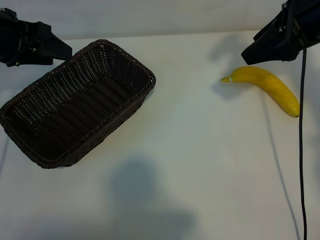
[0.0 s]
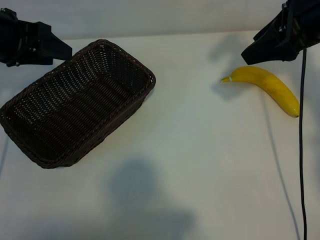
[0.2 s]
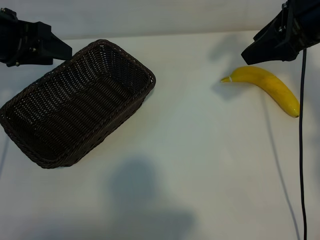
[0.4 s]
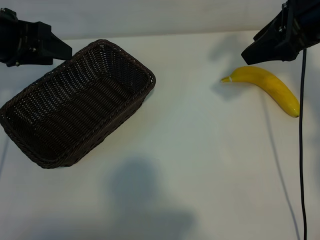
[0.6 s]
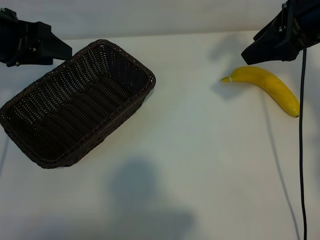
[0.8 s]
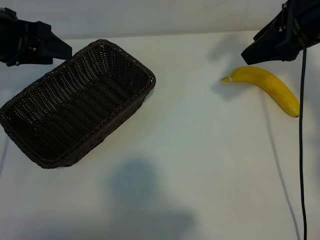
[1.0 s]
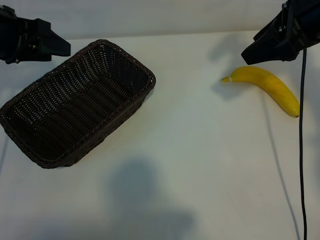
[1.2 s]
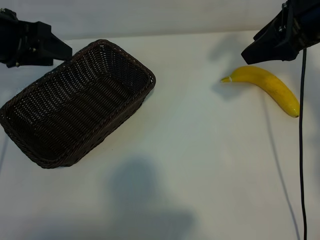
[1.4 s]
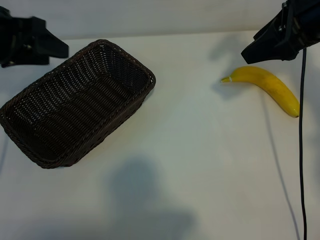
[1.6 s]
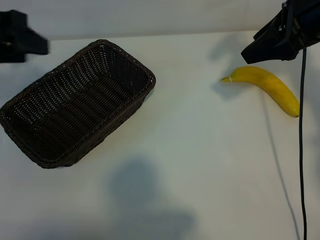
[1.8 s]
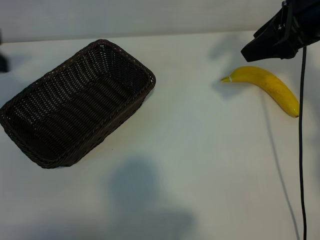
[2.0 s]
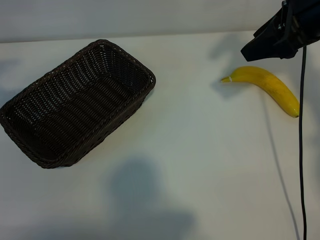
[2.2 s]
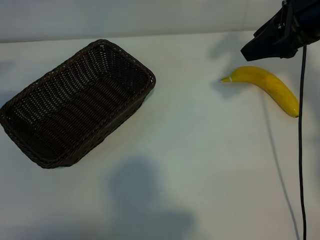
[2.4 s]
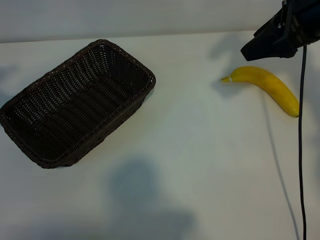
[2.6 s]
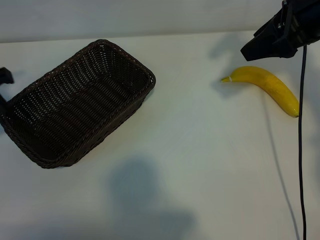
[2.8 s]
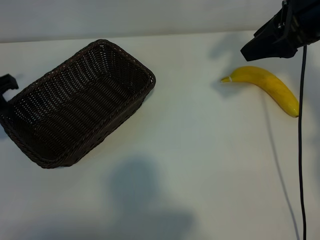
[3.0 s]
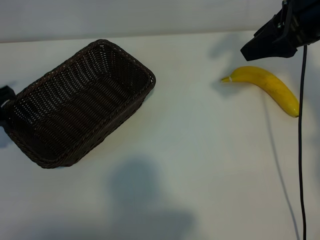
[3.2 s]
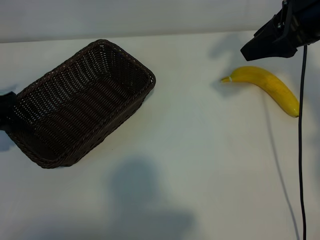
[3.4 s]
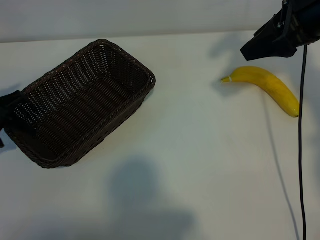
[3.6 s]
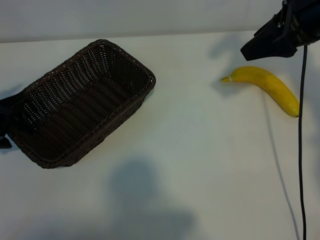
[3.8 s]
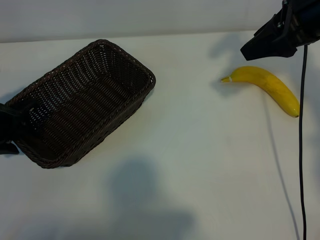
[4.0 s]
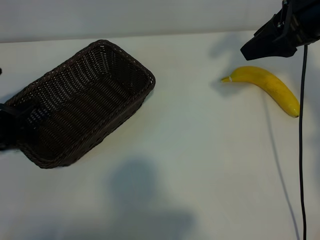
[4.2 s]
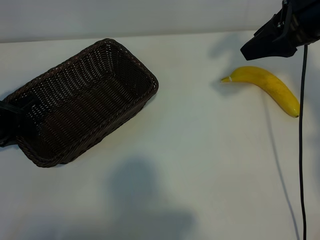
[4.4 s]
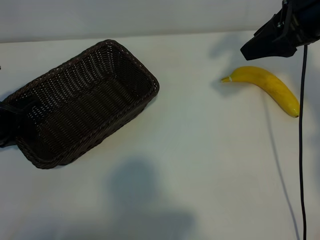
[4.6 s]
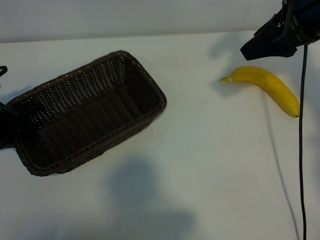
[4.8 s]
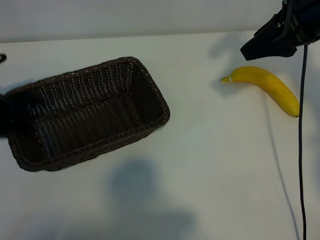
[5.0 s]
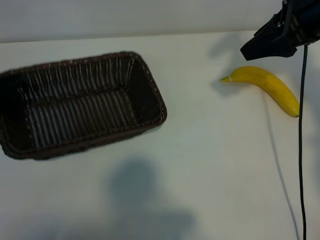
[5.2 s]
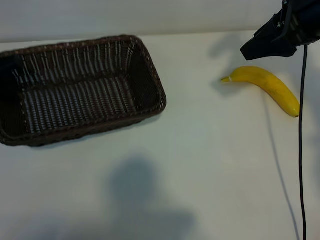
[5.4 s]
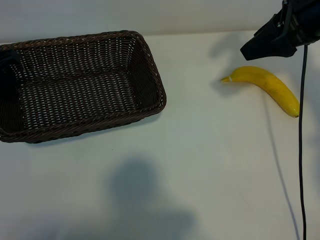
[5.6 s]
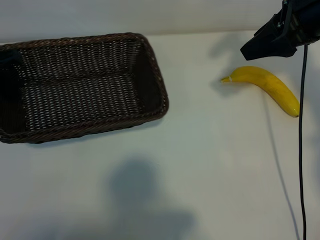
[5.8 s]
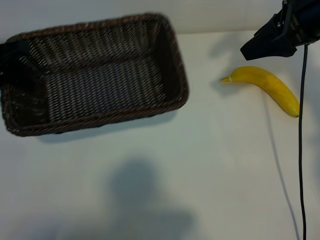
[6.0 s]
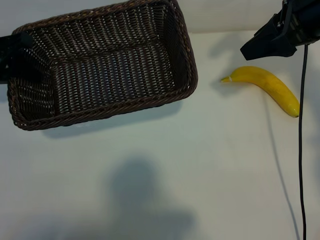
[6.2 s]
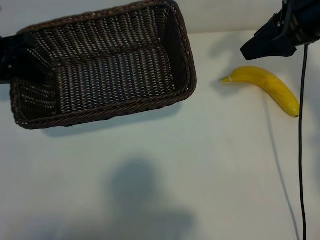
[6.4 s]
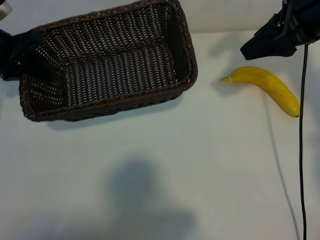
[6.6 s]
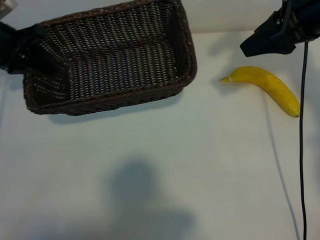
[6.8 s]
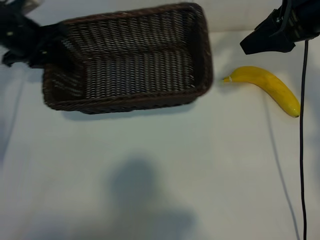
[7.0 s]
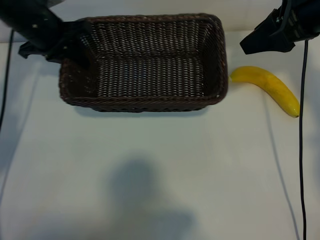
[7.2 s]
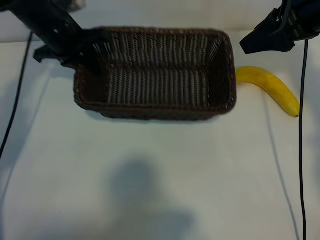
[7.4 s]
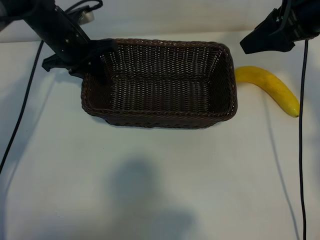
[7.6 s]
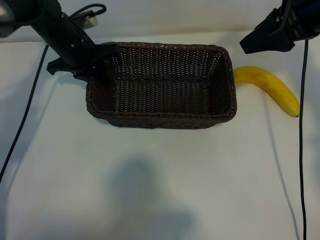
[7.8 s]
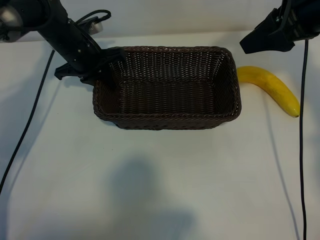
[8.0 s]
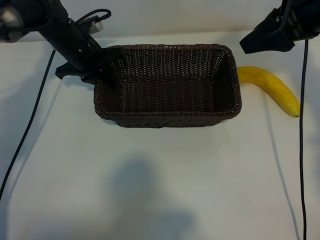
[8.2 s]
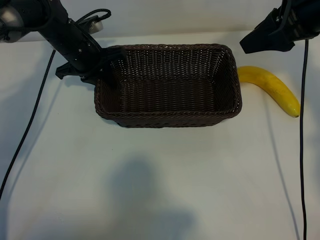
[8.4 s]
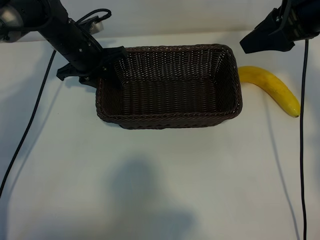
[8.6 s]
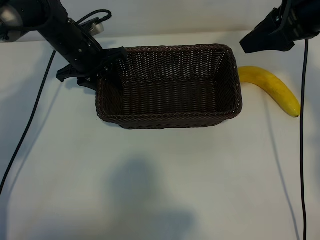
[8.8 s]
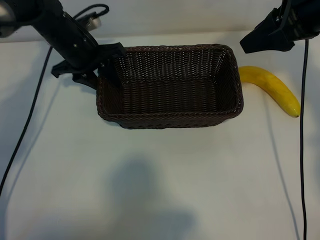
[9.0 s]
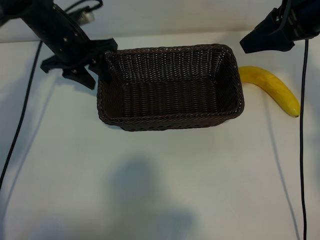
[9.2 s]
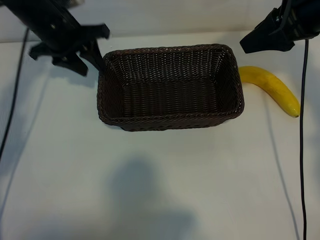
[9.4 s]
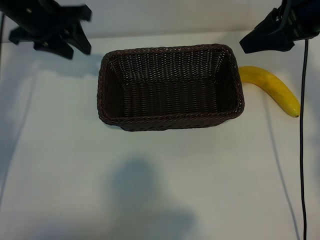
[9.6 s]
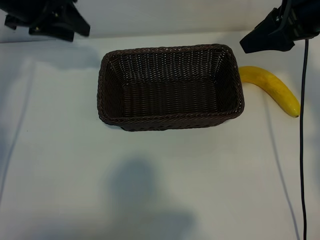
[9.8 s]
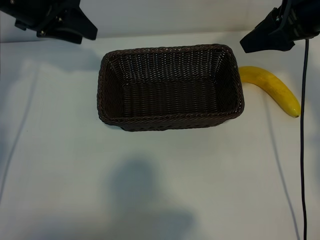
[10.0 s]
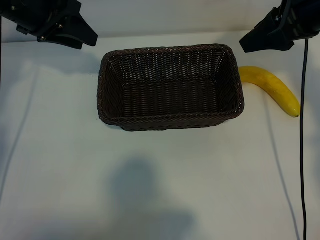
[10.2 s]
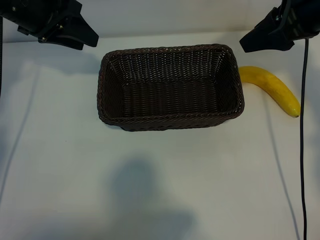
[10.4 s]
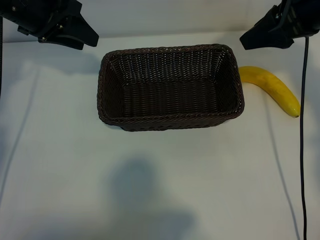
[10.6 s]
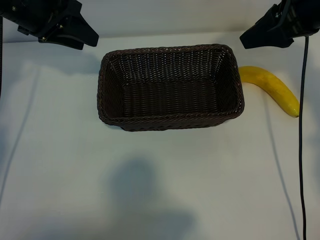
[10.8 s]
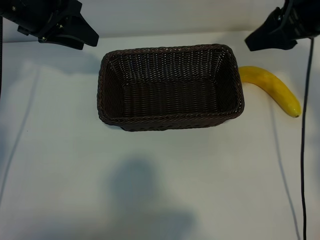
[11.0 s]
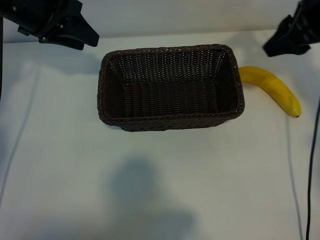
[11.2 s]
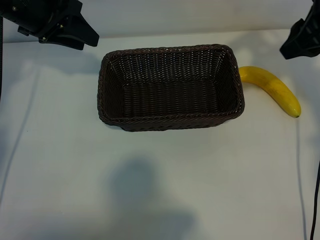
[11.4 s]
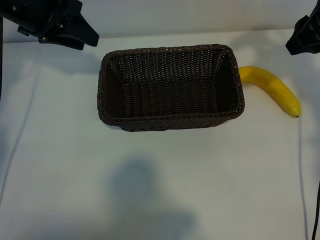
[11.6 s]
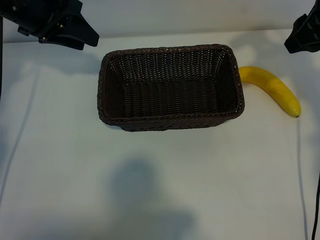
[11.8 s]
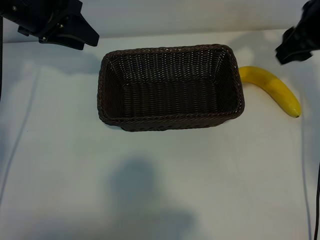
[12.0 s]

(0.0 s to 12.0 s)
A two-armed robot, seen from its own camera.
Task of the whole recording: pick up the banana and put it into the basket.
Step, 1.0 s - 4.2 s: Grasp the basket with the left gripper.
Step, 4.6 s - 8.8 s: Place the basket in the center of the table with the left gripper.

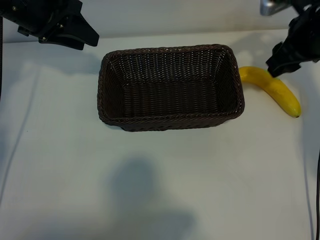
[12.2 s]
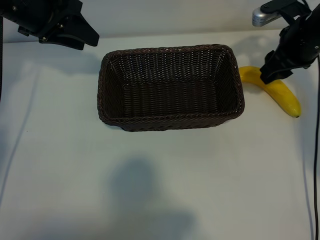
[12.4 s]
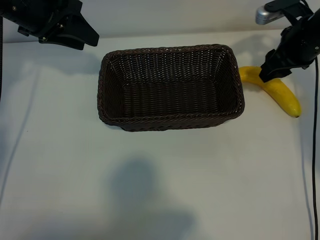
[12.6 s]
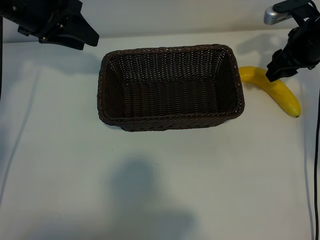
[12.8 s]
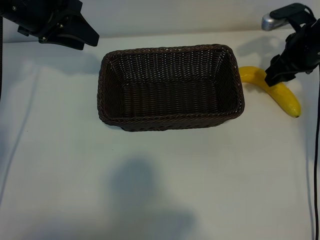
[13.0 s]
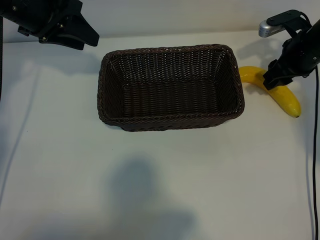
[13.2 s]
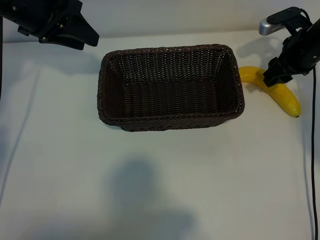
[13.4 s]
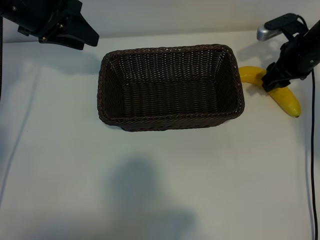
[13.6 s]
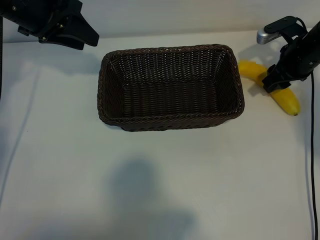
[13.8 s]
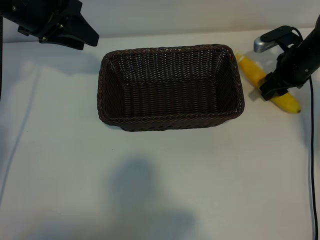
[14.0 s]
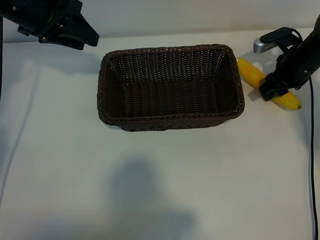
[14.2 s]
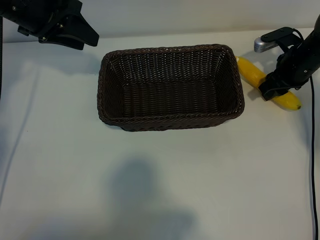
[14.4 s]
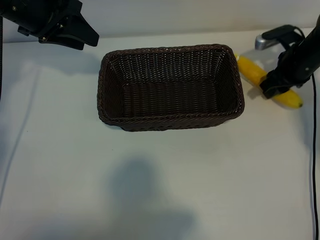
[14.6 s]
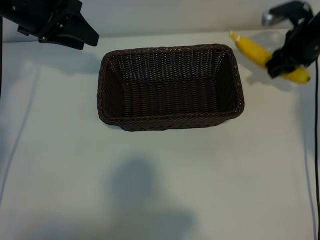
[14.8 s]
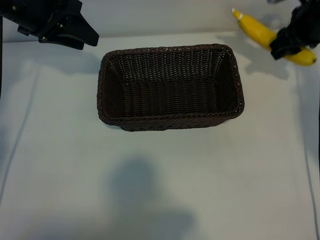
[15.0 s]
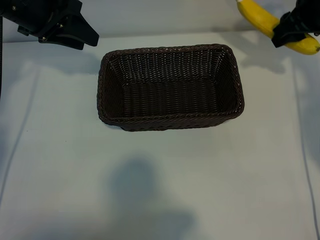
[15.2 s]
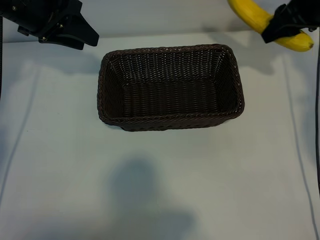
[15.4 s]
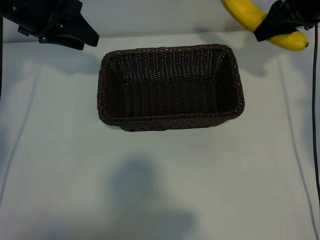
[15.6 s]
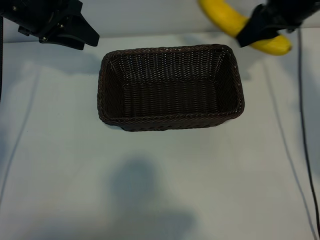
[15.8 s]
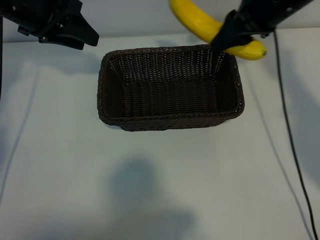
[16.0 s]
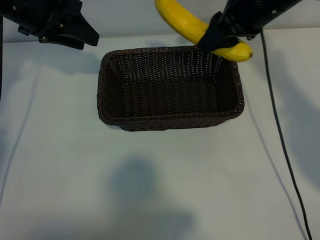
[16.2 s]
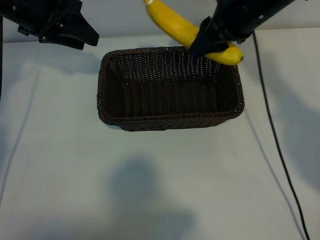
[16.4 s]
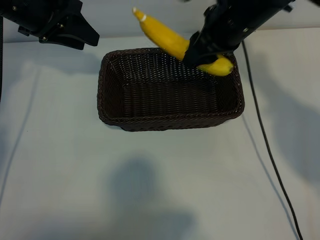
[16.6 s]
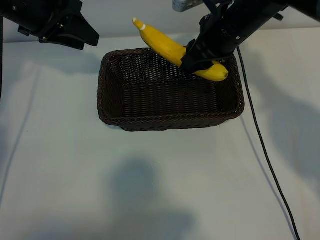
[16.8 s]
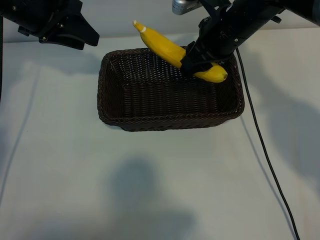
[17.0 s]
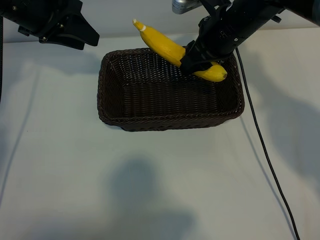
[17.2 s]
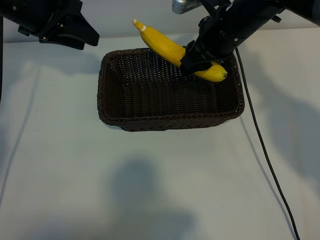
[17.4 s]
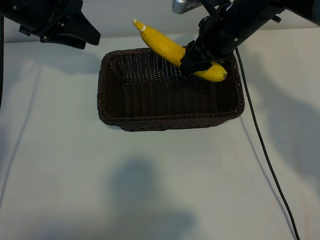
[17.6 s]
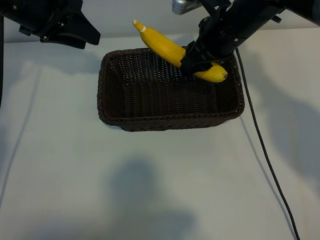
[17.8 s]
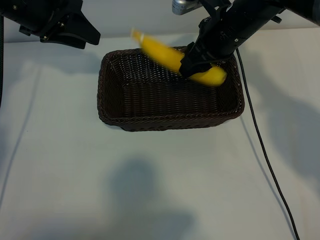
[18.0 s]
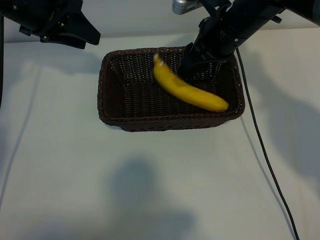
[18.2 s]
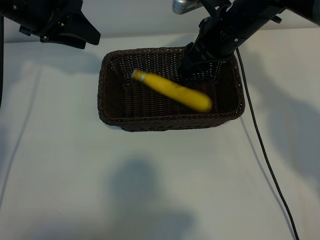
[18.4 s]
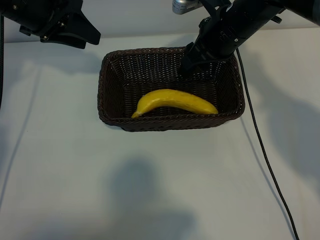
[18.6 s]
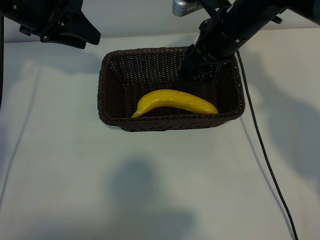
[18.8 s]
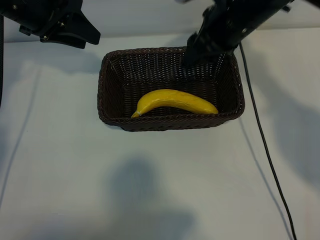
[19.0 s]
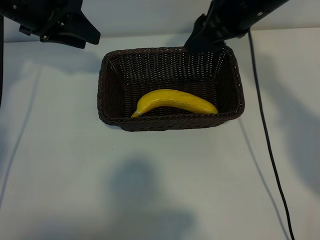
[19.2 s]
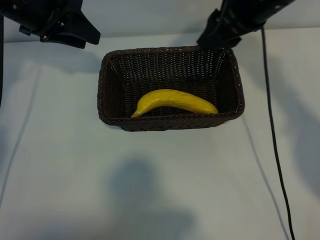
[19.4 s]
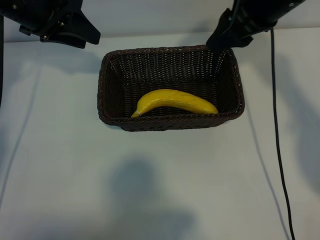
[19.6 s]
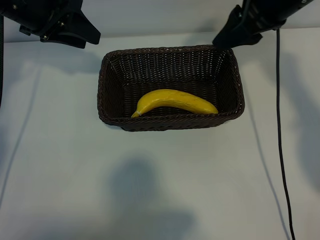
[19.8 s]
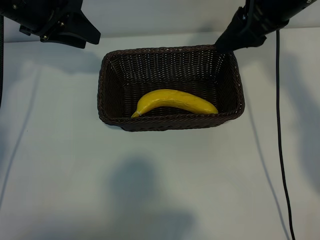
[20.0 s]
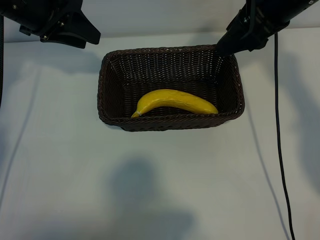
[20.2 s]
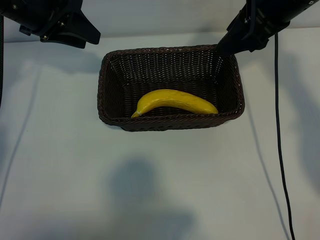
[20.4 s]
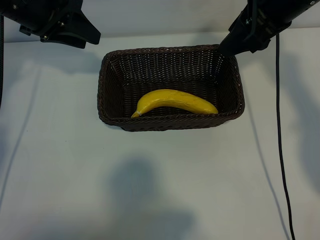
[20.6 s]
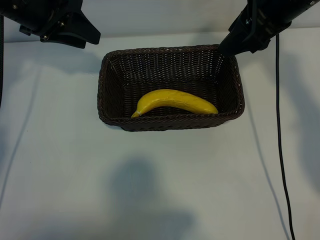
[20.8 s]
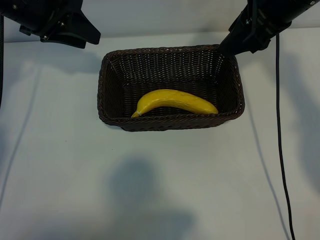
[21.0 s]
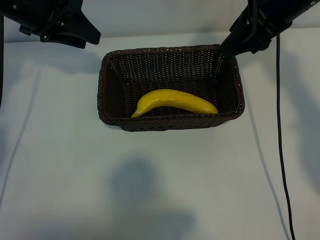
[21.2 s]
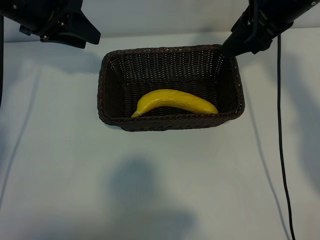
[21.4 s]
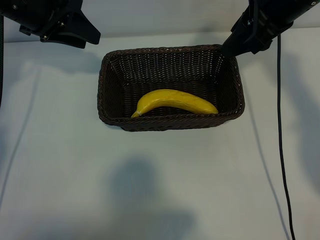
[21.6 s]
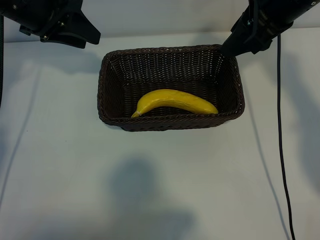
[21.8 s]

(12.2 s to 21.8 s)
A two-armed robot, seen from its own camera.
Task of the whole recording: pick up the banana and put it into the basket.
Step, 12.2 s - 14.4 s: Grasp the banana with right gripper.
Step, 14.6 s - 18.2 s: Place the banana in the basket with right gripper.

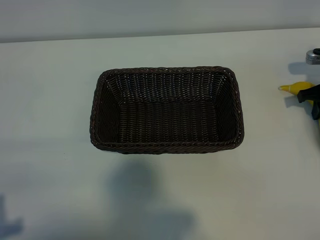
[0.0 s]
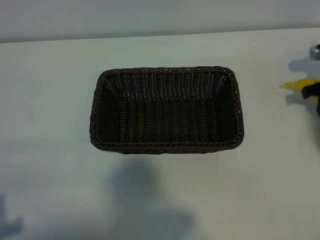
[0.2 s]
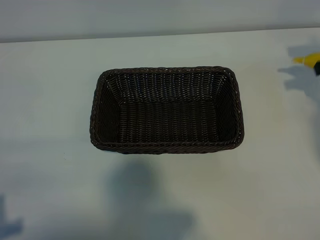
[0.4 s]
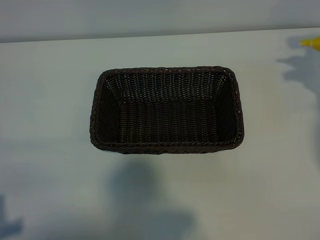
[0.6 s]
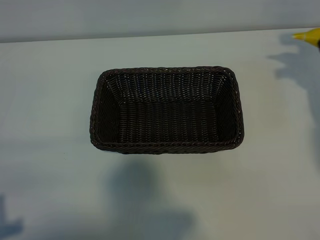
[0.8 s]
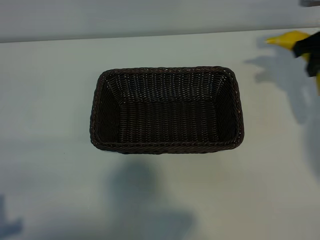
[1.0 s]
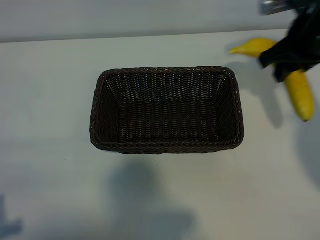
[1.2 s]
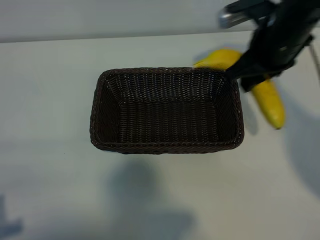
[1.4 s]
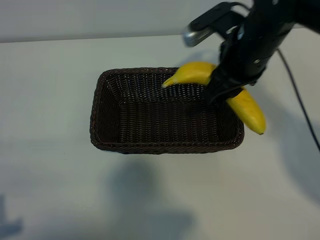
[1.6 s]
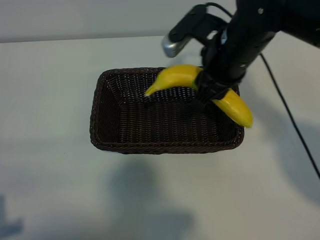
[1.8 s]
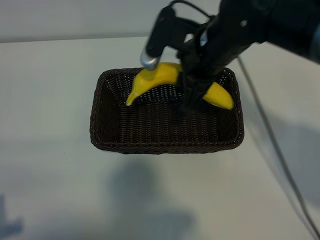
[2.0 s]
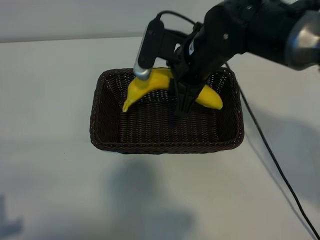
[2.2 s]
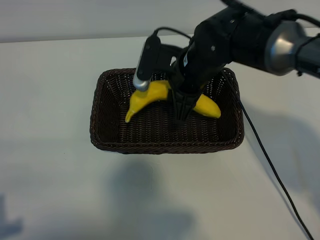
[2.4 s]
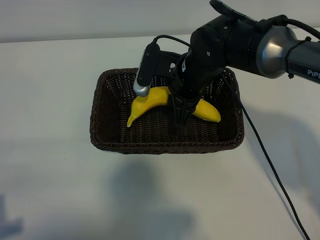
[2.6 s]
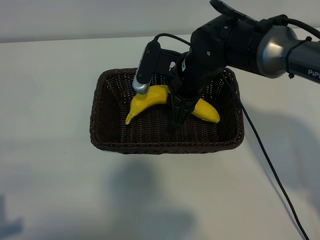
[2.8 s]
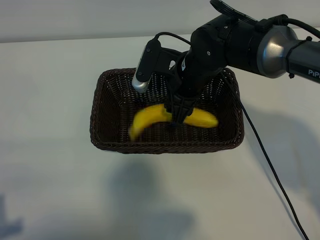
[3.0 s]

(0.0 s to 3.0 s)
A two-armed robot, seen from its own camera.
Task of the whole recording: pick up the banana and put it into the basket.
Step, 0.2 s - 3.0 s: Place the banana in the basket with right gripper.
